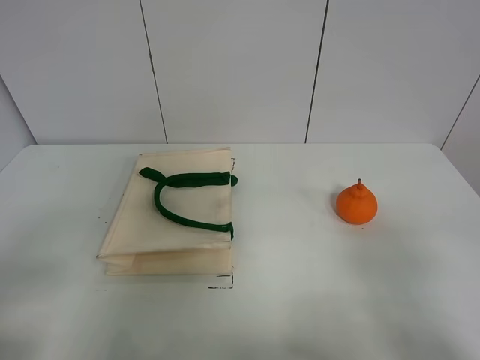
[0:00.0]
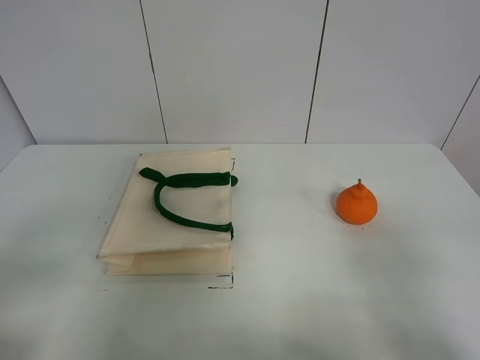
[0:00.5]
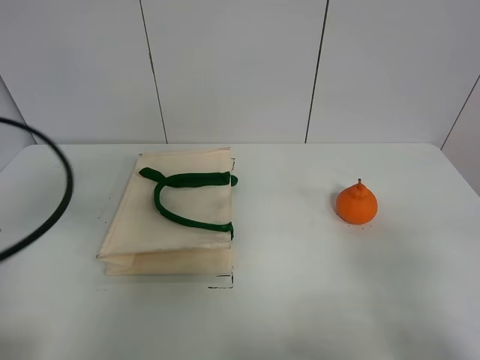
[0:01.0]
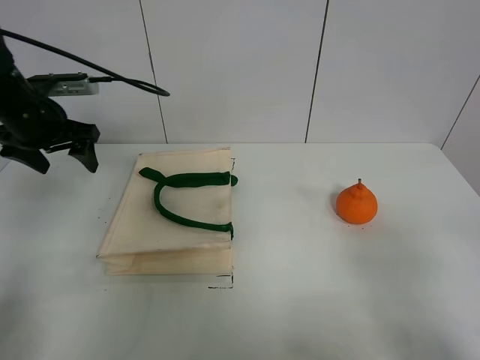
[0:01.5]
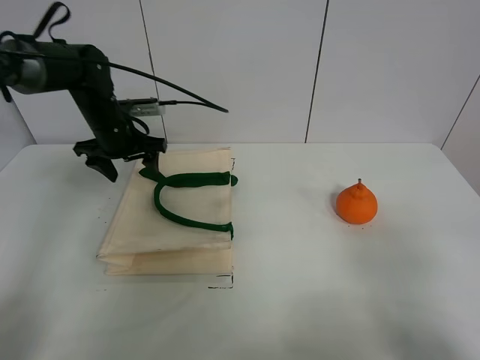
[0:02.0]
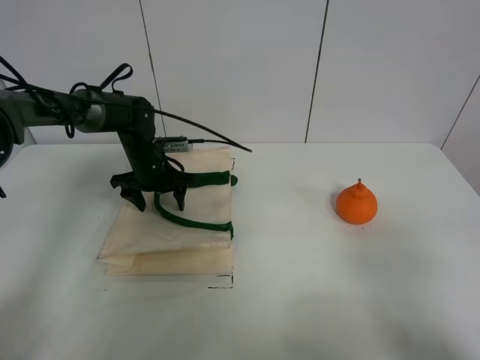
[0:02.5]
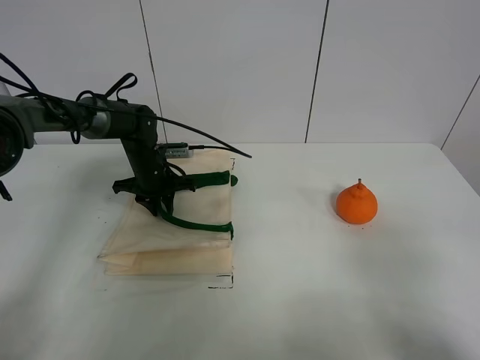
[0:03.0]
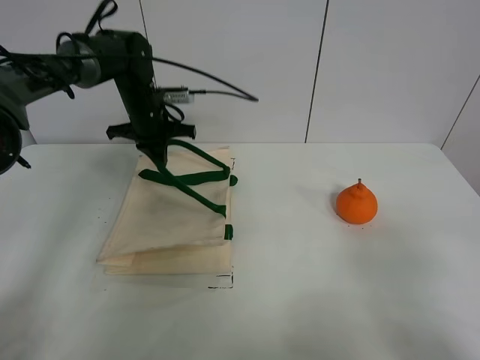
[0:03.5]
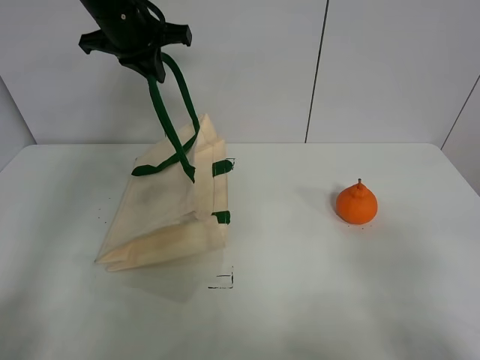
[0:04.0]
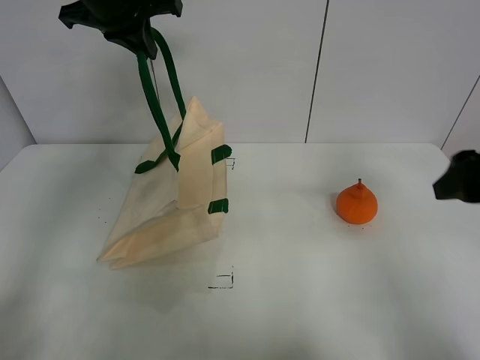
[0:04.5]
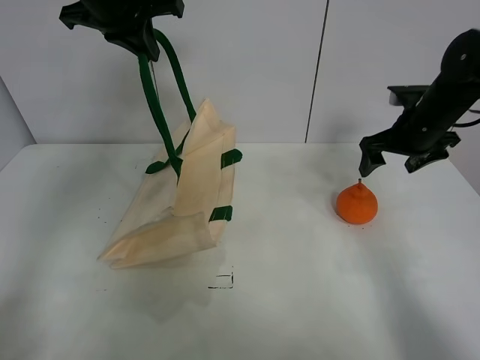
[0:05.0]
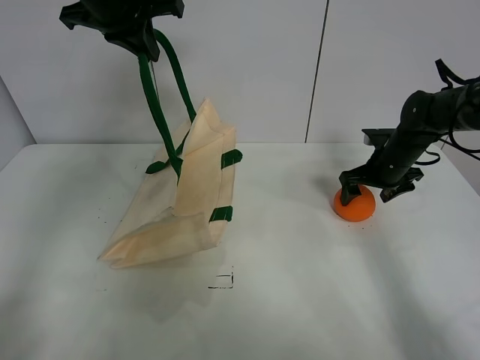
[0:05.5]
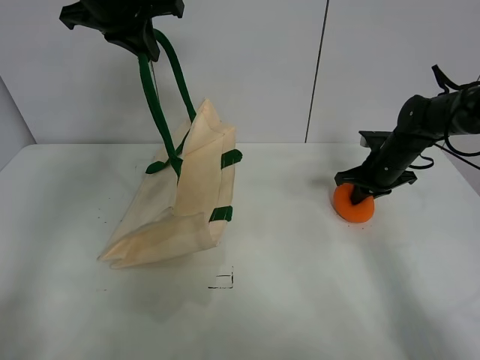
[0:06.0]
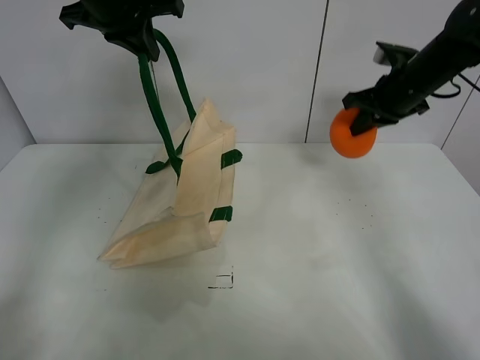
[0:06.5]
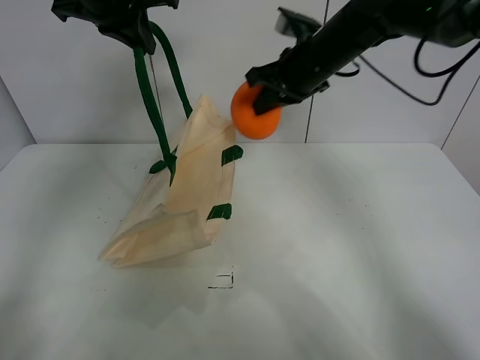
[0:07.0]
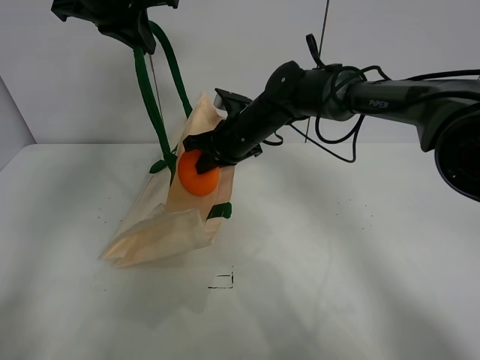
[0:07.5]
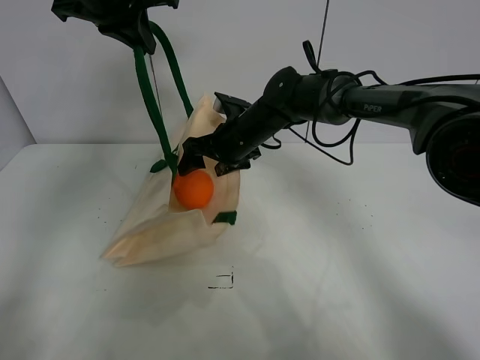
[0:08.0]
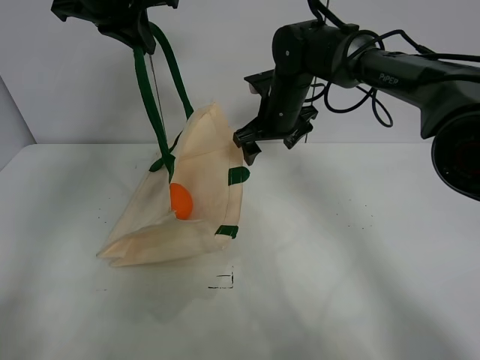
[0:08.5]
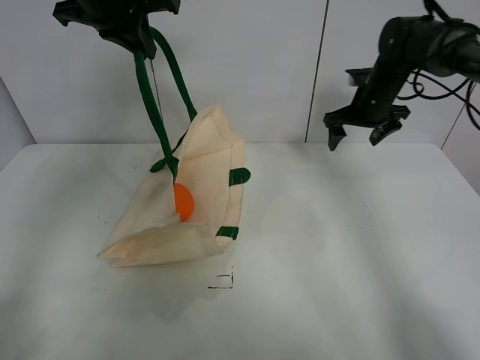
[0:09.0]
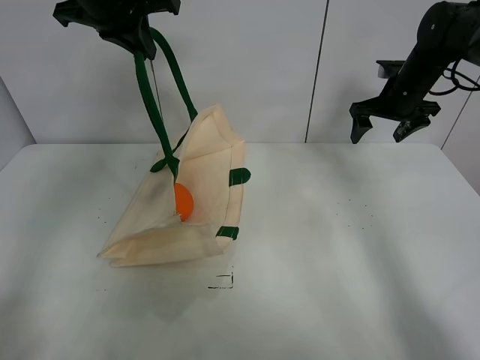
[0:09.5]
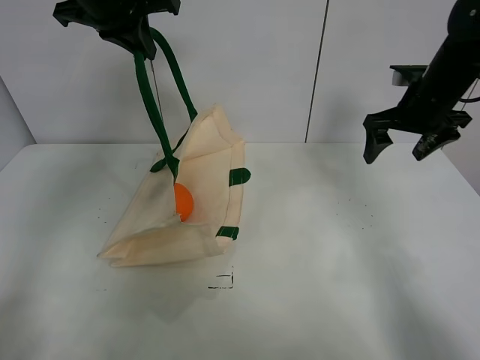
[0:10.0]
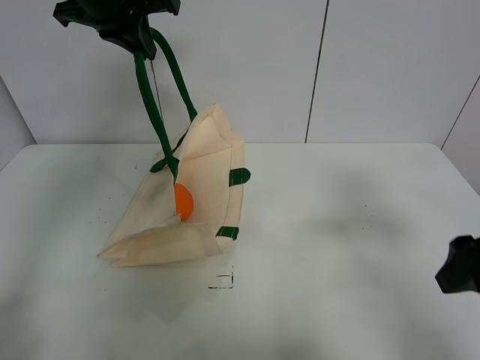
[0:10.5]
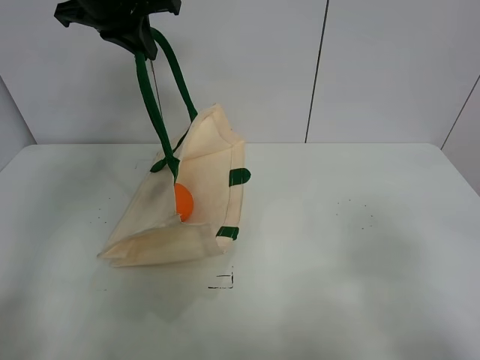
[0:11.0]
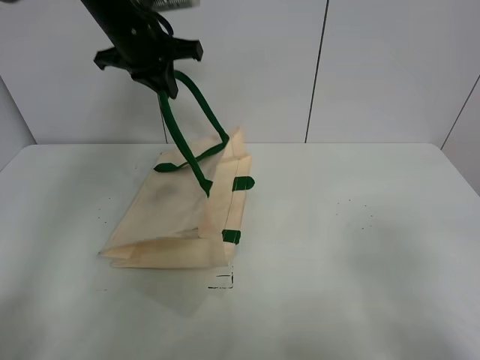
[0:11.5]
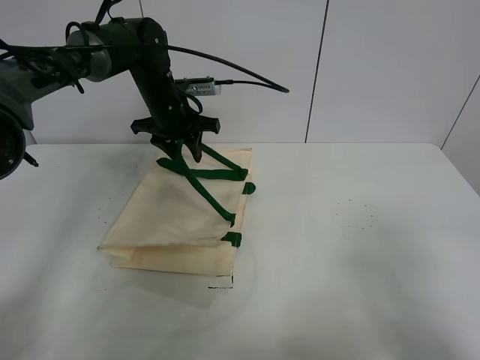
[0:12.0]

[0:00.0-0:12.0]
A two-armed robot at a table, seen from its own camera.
Task of the whole recording: open the white linen bag and put the orange in the bag.
Step, 0:00.0 to 0:03.5: Lift the handbag with left gripper.
Step, 0:04.0 to 0:06.0: Grasp the orange with right gripper.
Step, 0:06.5 to 0:08.0: Place the orange in the handbag with right gripper.
0:00.0 to 0:02.0: The left gripper shifts roughly 40 cm forward.
0:02.0 to 0:04.0: The left gripper goes approximately 15 cm upward, and closes up.
0:04.0 to 0:06.0: The right gripper goes roughly 40 cm forward, and closes up. The left gripper ends up about 5 cm from where it was.
0:06.0 to 0:08.0: The right gripper shifts approximately 25 cm to the left, and opens its fingers.
0:08.0 to 0:10.0: The right gripper moves to the right, roughly 25 cm.
0:10.0 to 0:12.0: The right gripper heads backward, covering some 35 cm. The left gripper travels downward by about 20 cm, and opens.

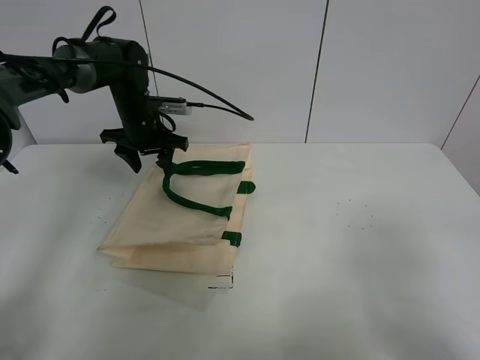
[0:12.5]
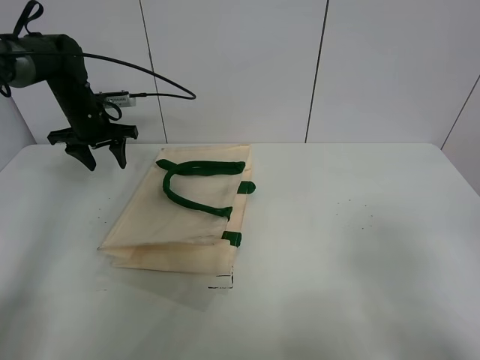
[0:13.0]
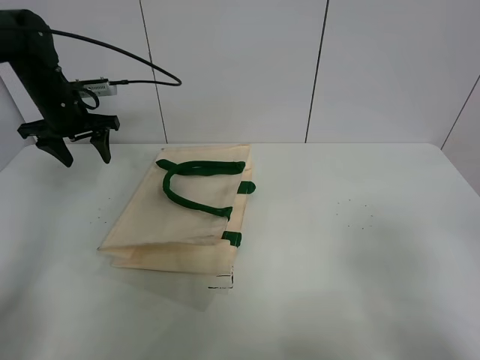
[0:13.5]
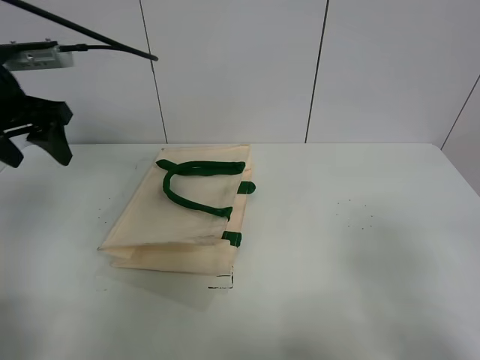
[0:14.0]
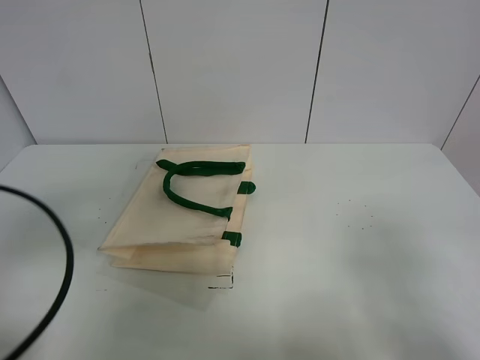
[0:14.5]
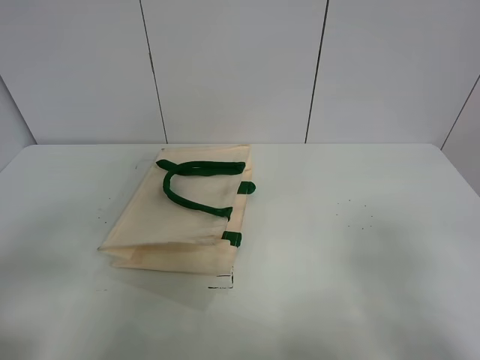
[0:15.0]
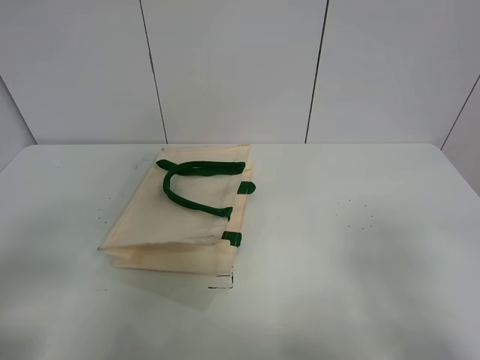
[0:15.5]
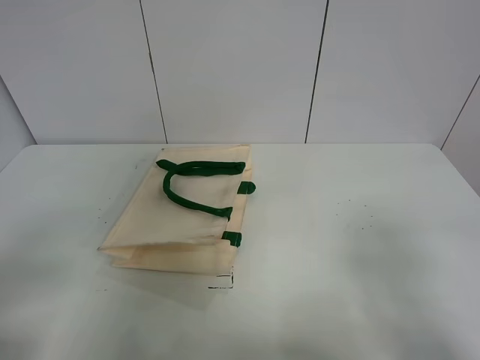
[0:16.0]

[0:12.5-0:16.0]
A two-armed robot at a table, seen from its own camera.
Task of the whole recording: open the white linen bag and put the orange in the bag.
0:12.5 to 0:14.5: The left gripper is displaced backward by about 40 cm.
0:14.5 to 0:16.0: The left gripper heads backward, covering some 10 cm.
